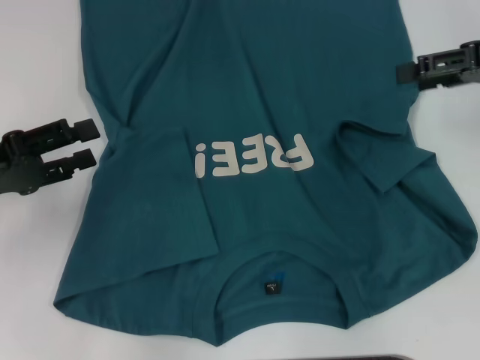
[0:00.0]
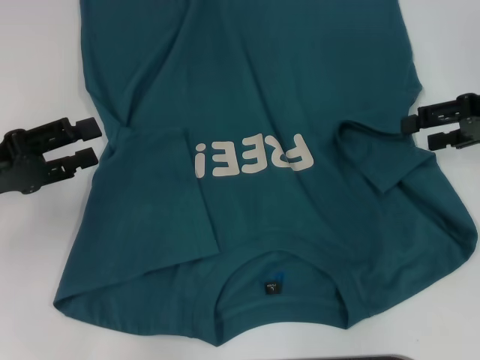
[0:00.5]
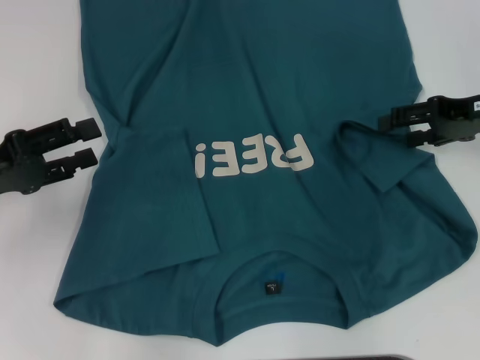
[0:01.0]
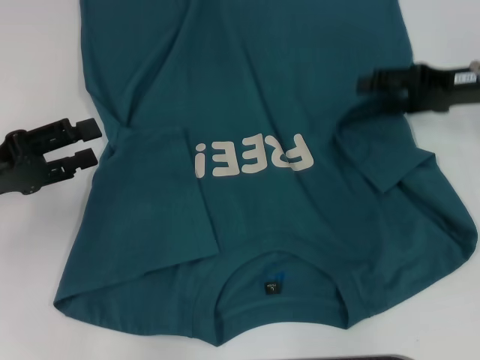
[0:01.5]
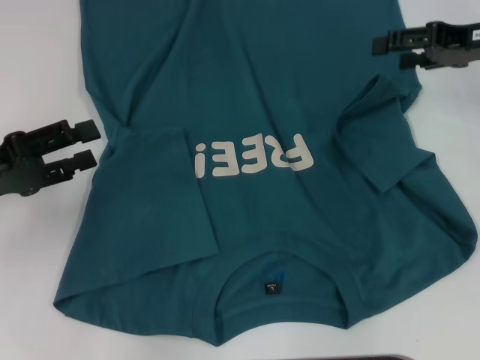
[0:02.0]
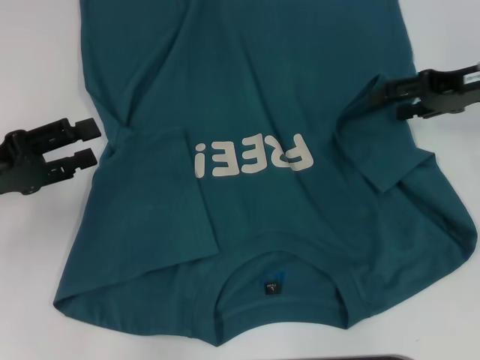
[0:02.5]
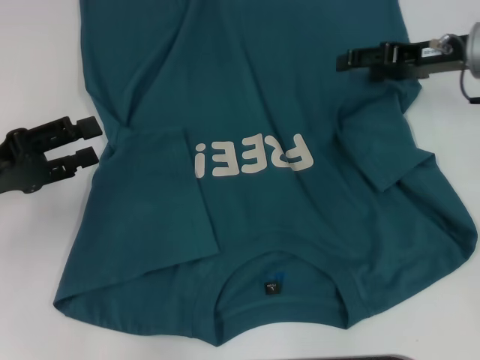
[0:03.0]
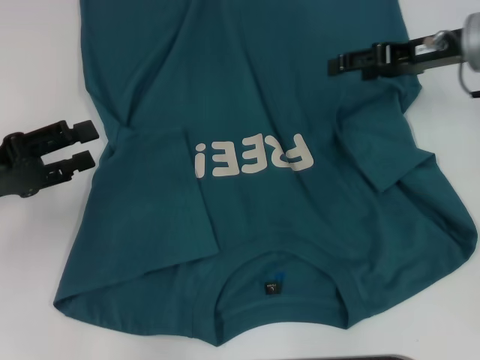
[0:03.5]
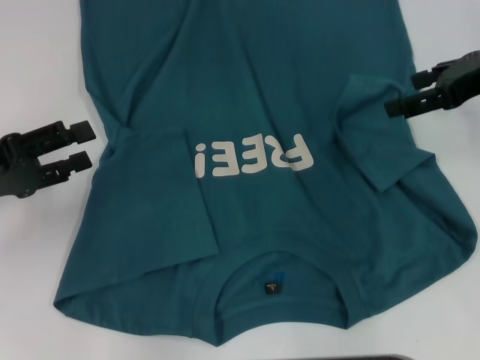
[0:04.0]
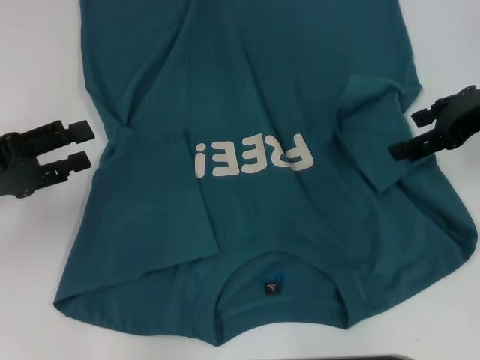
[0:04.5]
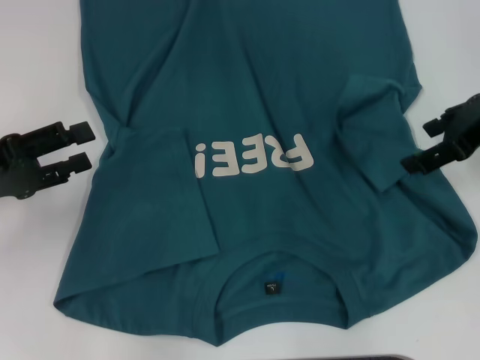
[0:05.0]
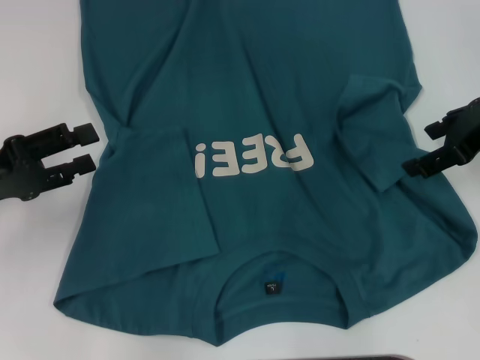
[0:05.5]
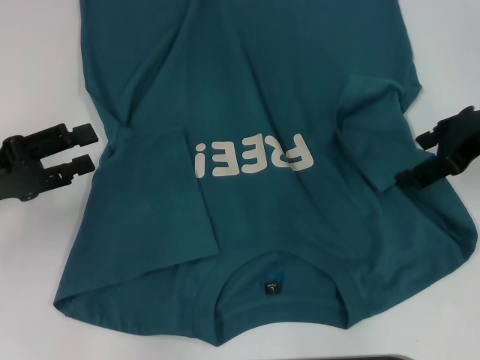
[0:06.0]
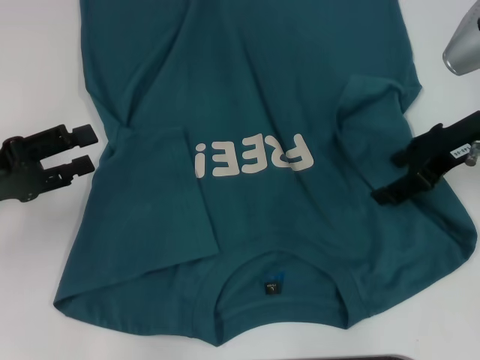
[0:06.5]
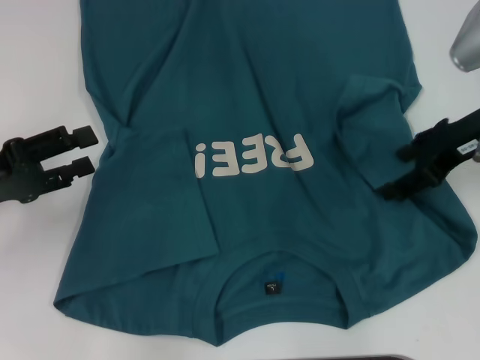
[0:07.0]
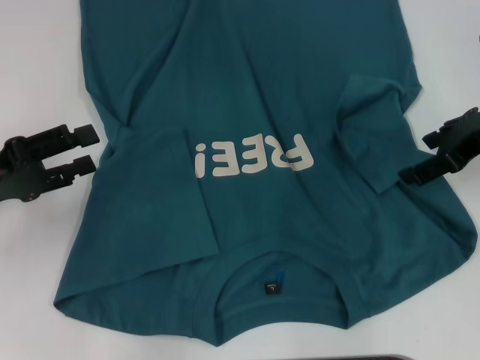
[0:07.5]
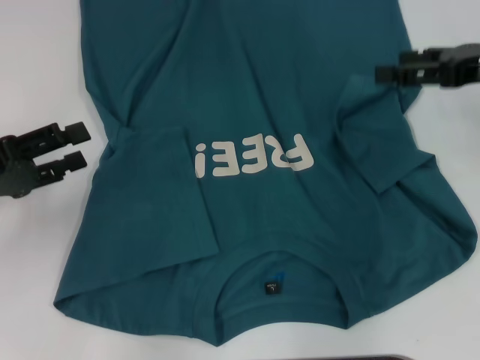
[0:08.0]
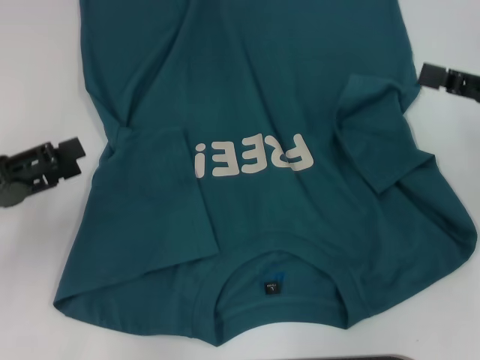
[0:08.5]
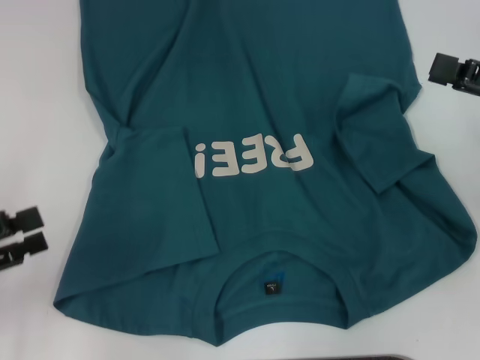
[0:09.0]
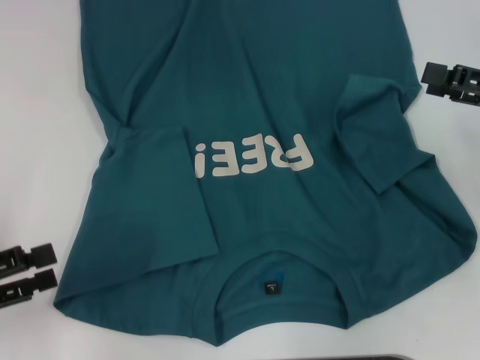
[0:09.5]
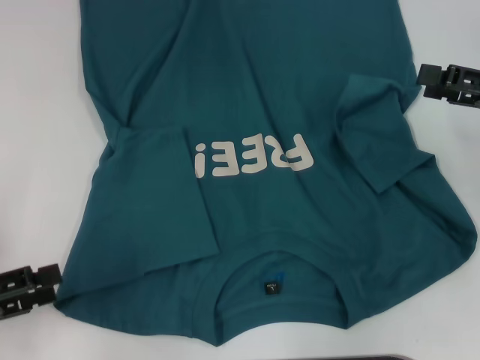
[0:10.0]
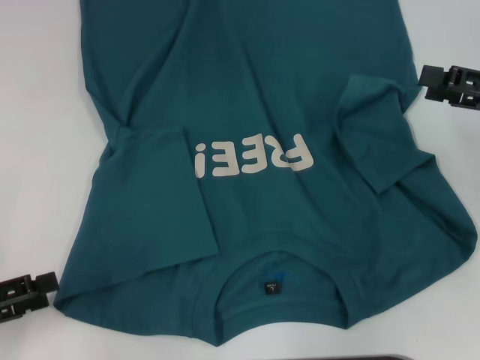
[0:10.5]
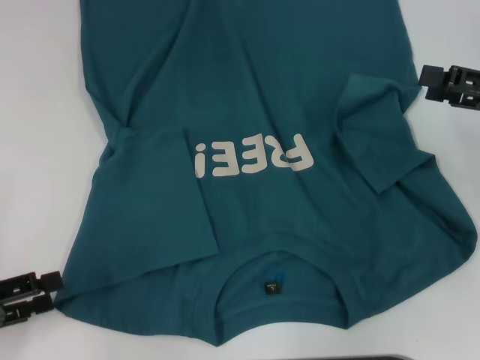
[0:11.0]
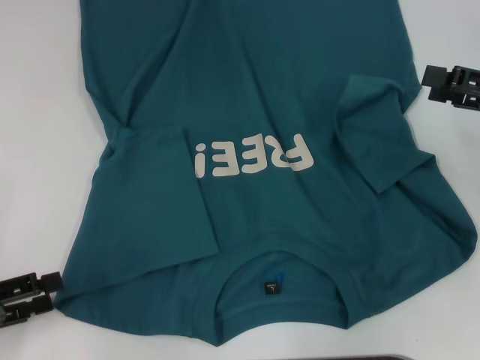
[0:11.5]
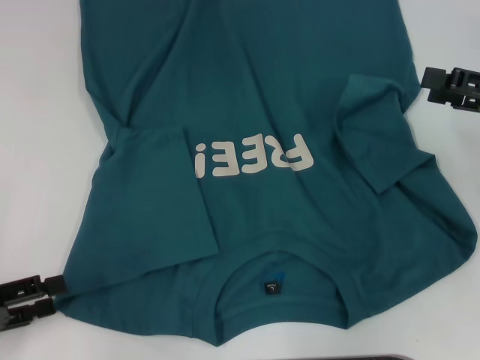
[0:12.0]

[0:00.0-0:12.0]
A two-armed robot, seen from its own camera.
Step, 0:00.0 to 0:03.5: Fold the bottom right sleeve to the right.
0:04.0 to 0:06.0: The grippers stay close to where they were, moving slightly.
0:08.0 to 0:10.0: The left gripper goes some 10 cm backward. The right gripper shifts by approximately 5 cm.
0:10.0 to 0:12.0: The grippers make only small movements.

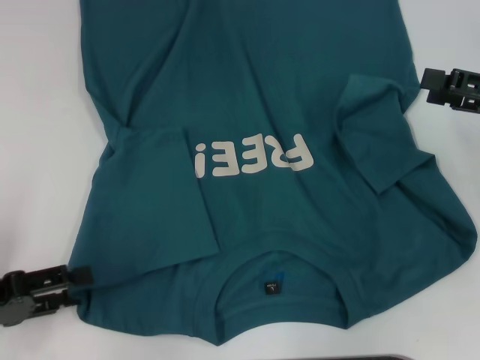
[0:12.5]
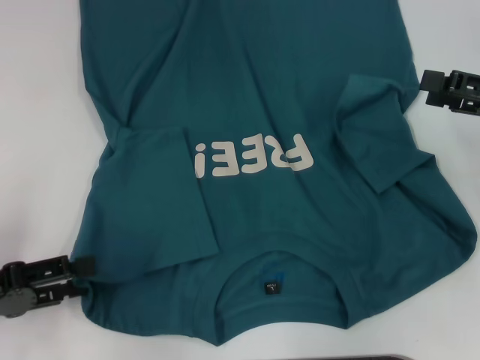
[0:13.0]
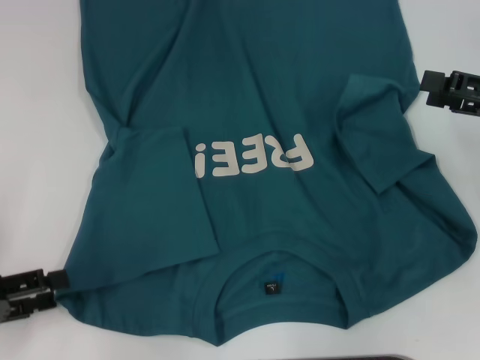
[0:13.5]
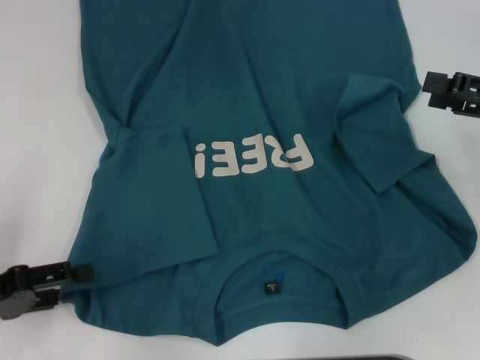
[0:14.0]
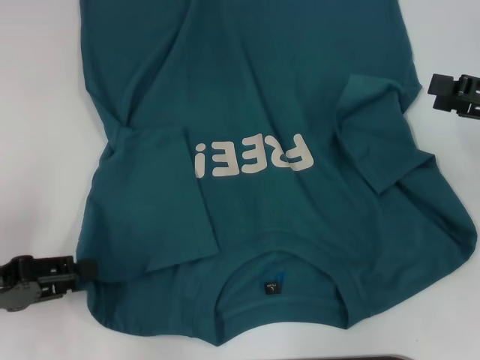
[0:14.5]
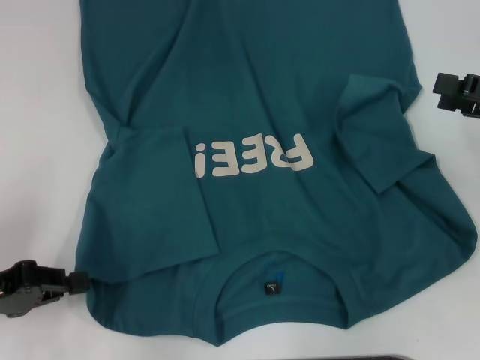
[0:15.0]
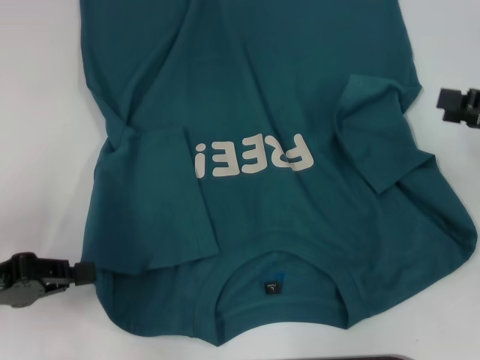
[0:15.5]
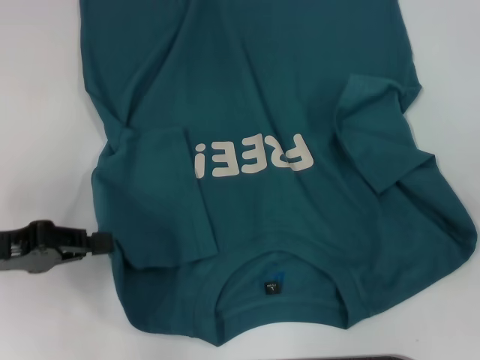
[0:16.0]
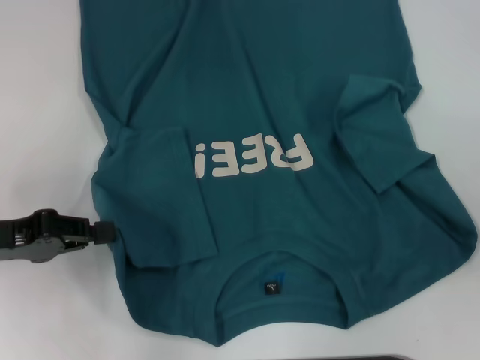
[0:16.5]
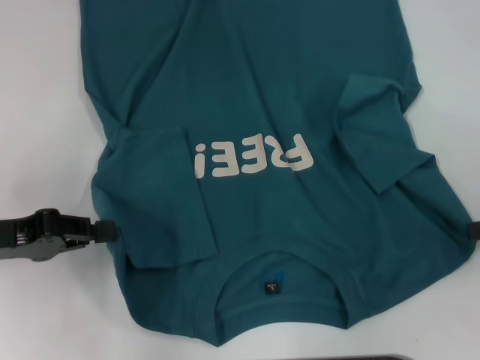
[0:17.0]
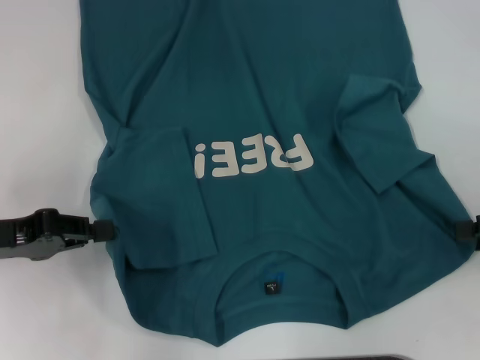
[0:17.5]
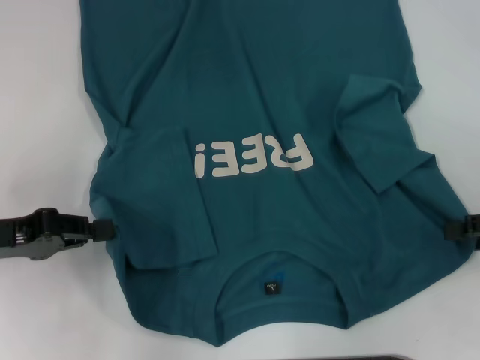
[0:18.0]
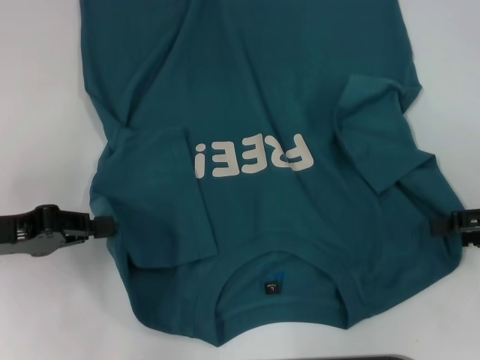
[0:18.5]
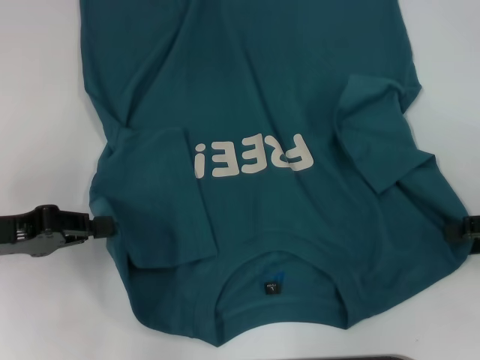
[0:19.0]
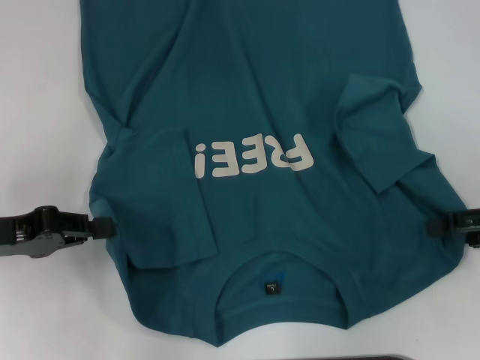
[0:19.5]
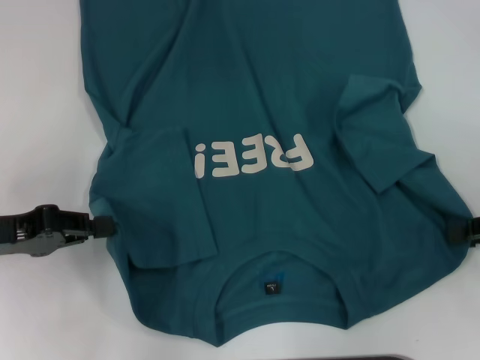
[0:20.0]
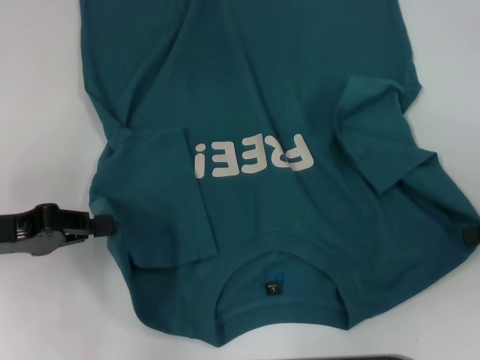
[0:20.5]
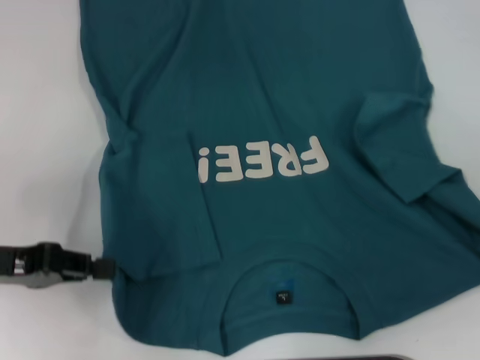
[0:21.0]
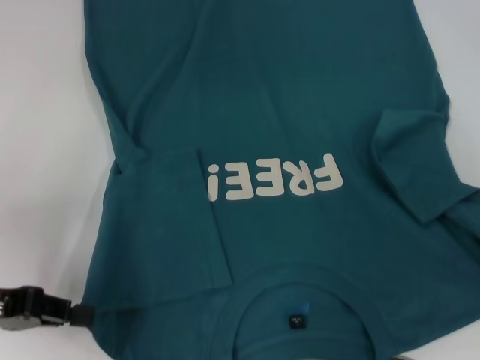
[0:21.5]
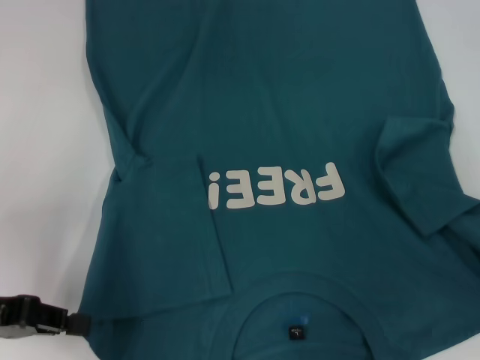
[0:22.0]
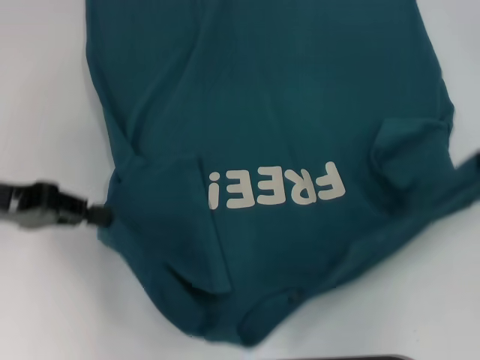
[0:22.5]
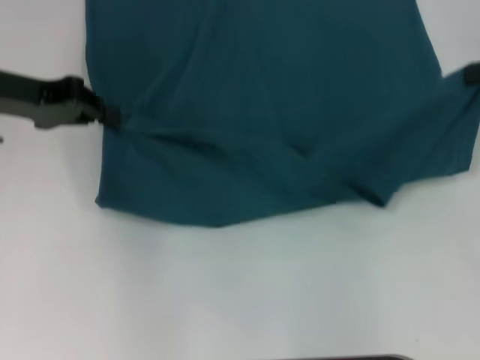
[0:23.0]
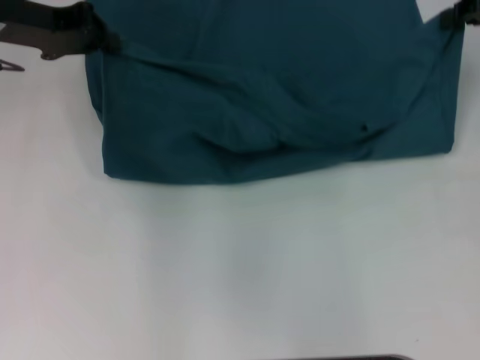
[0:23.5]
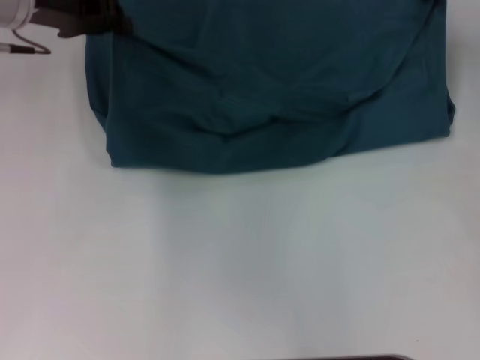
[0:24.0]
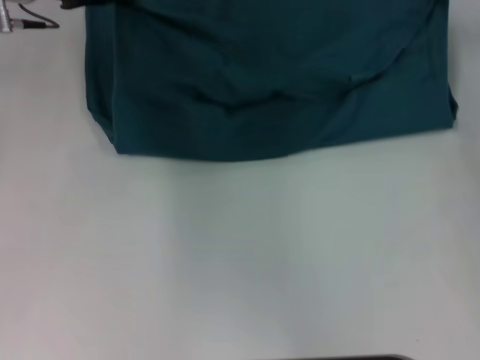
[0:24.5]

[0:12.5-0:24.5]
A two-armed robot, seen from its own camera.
Step, 0:12.5 to 0:15.0: Grab the bottom left corner with your left hand.
Step, 0:15.5 to 0:20.0: Grab the bottom right corner with your right hand.
0:12.5 to 0:14.5: The grippers move only a little.
0:14.5 to 0:16.5: The left gripper moves about 5 cm, and closes, while the right gripper shifts about 10 cm to the right and backward.
0:18.5 to 0:20.5: The right gripper closes.
0:20.5 to 0:22.5: The left gripper shifts by some 5 cm. The right gripper moves upward, some 10 cm.
0:22.5 to 0:24.5: The left gripper travels forward and to the right by roughly 20 cm. The right gripper shifts some 20 cm forward and to the left.

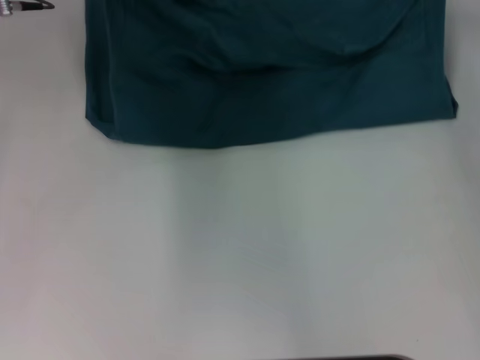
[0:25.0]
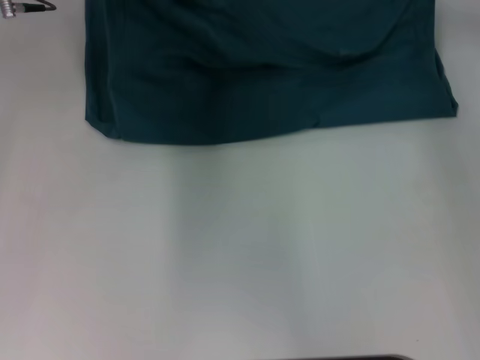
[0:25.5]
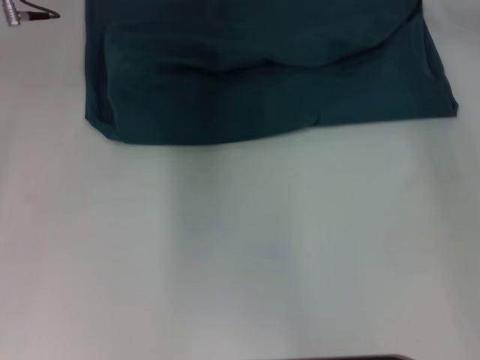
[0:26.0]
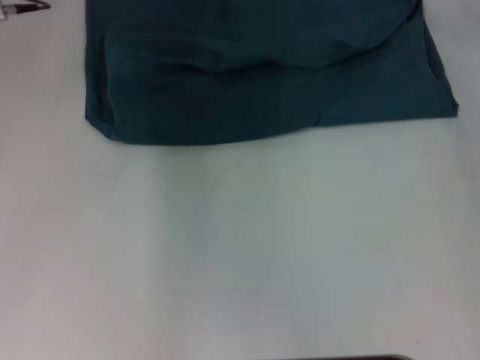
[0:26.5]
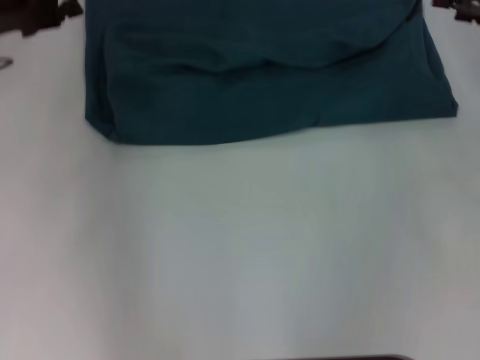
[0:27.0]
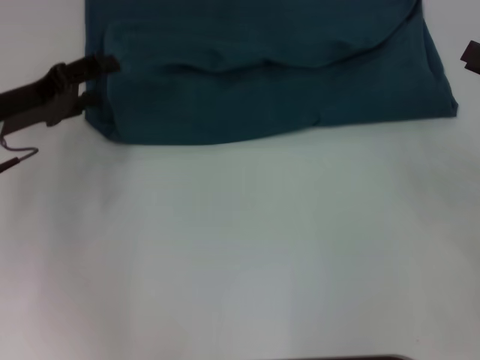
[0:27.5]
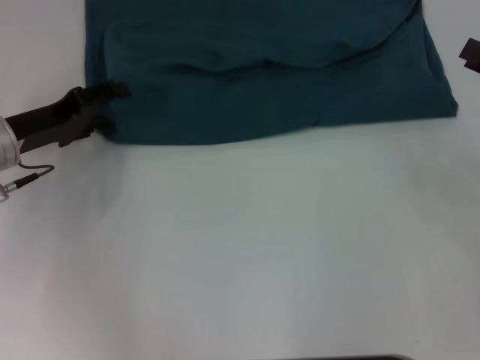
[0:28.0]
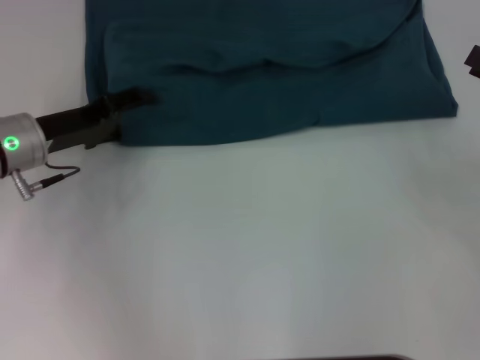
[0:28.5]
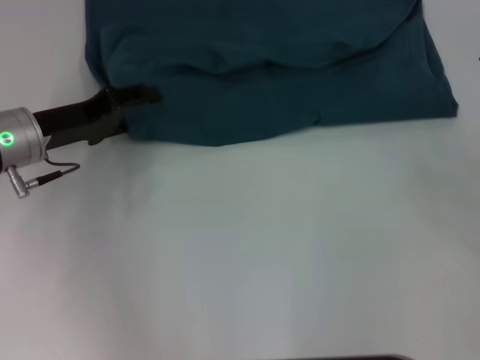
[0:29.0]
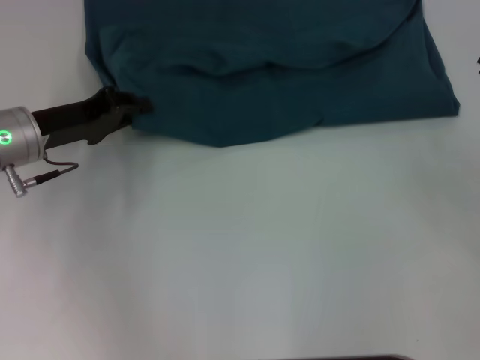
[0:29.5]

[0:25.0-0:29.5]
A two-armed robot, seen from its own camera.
0:25.0 to 0:27.0: The right gripper goes some 15 cm backward and to the right, and opens its fingers, while the left gripper shifts some 10 cm backward and to the left, and opens.
0:27.0 to 0:29.5: The right gripper heads backward, covering about 10 cm. The left gripper goes roughly 10 cm downward, and closes its fingers.
